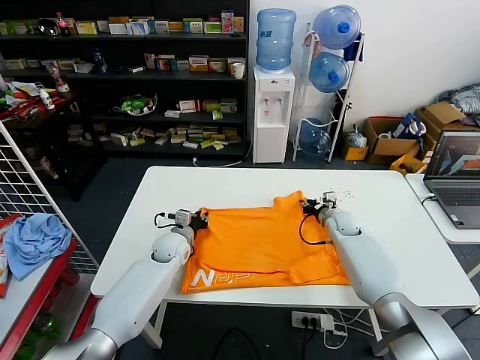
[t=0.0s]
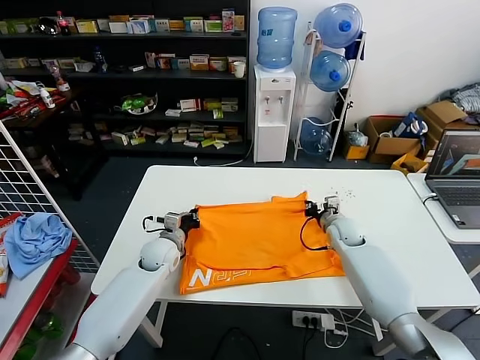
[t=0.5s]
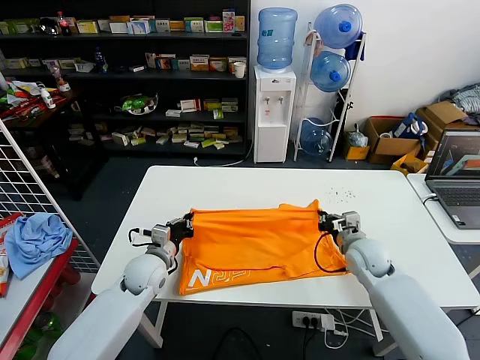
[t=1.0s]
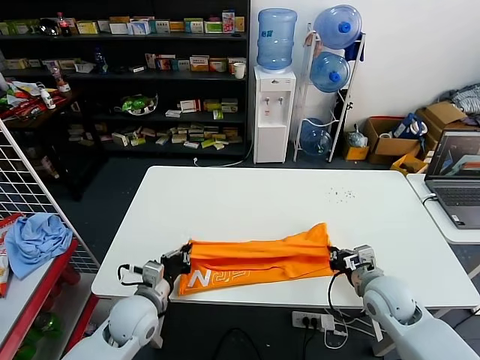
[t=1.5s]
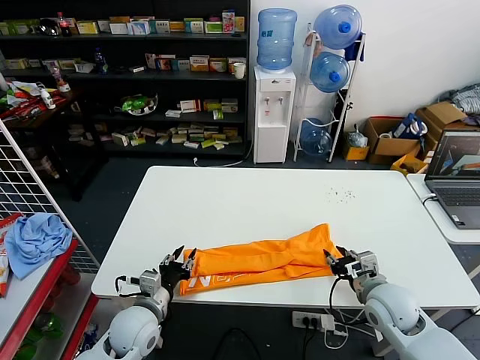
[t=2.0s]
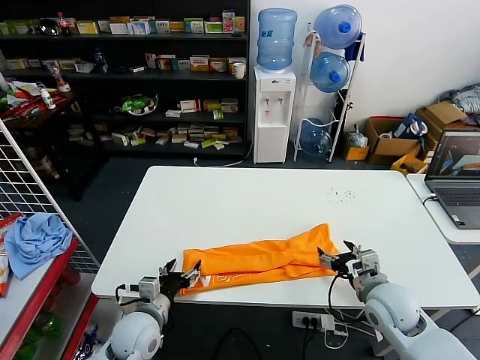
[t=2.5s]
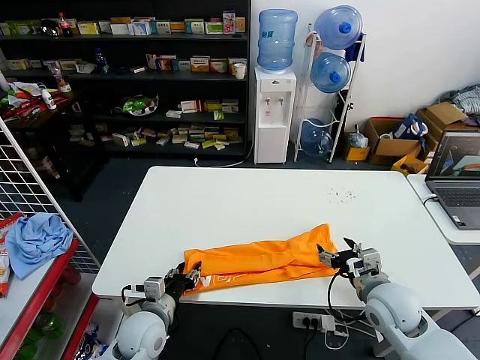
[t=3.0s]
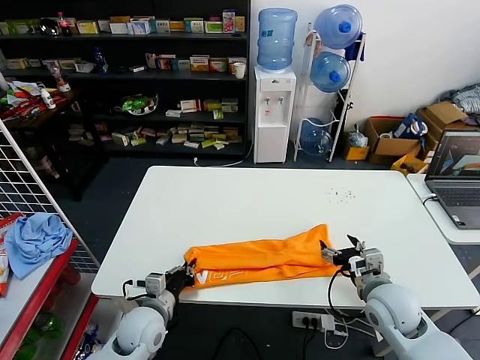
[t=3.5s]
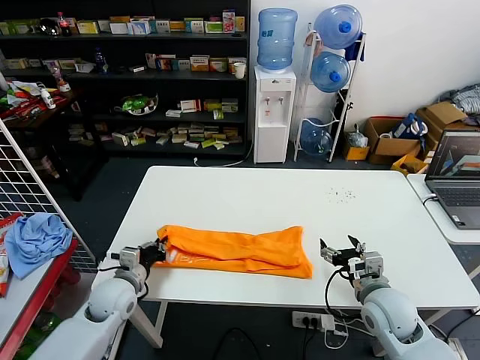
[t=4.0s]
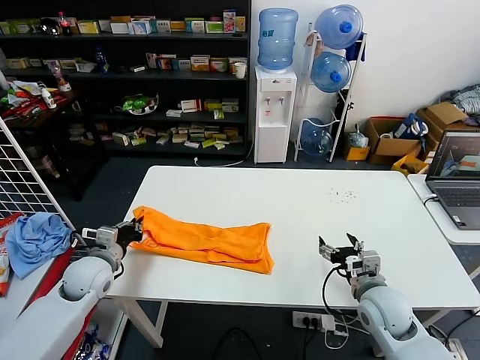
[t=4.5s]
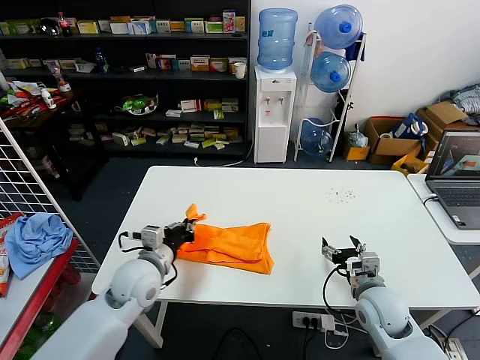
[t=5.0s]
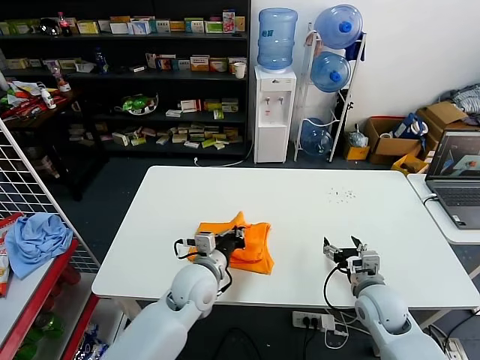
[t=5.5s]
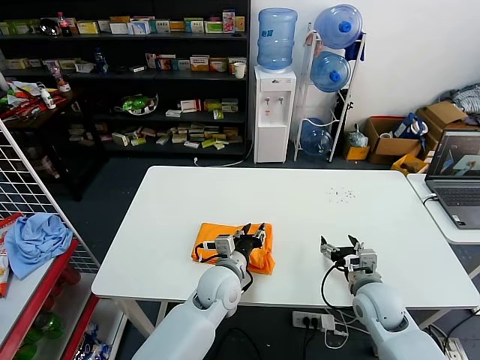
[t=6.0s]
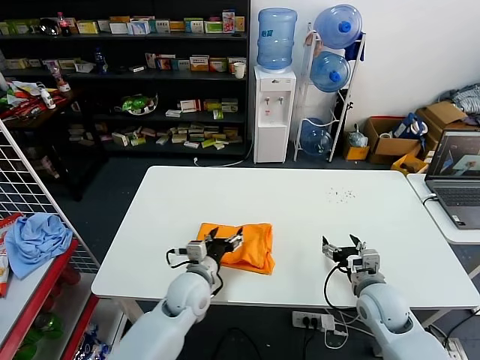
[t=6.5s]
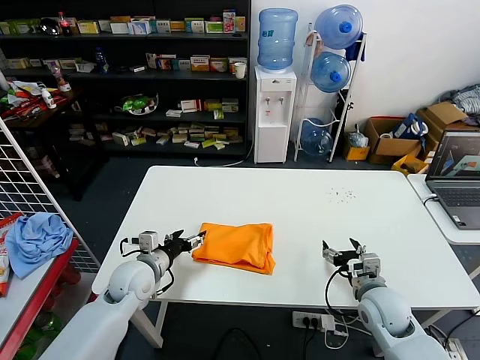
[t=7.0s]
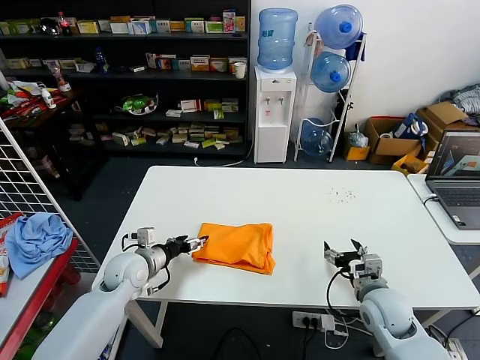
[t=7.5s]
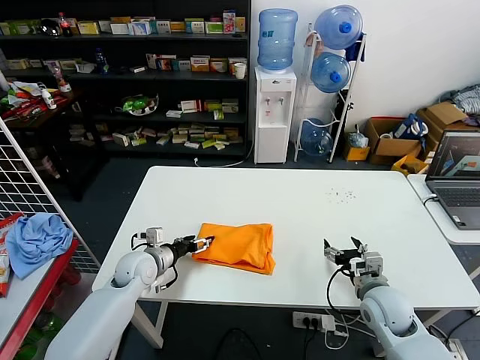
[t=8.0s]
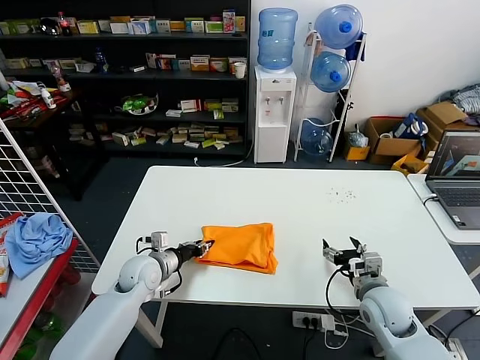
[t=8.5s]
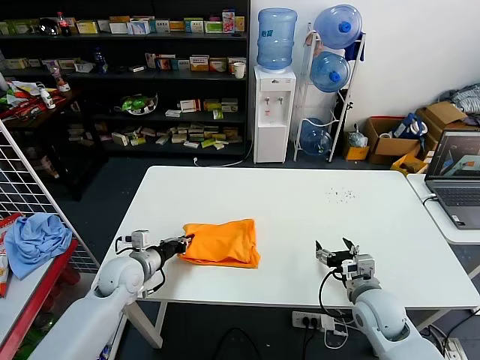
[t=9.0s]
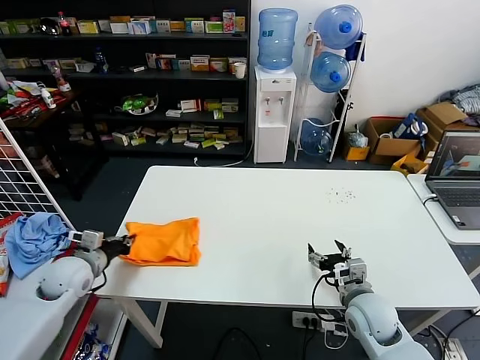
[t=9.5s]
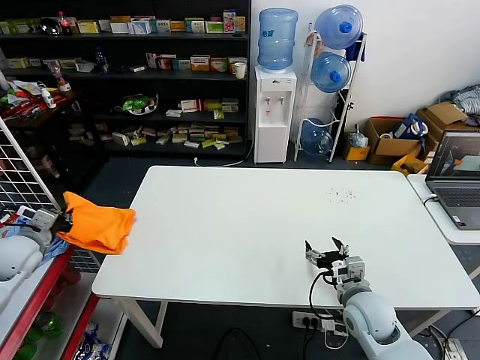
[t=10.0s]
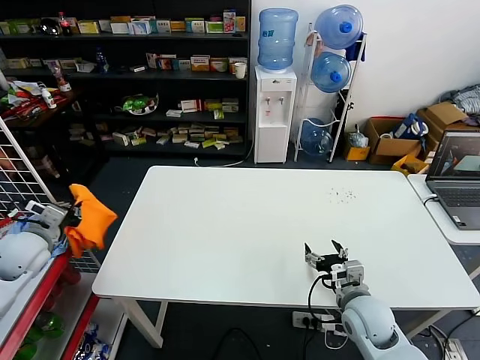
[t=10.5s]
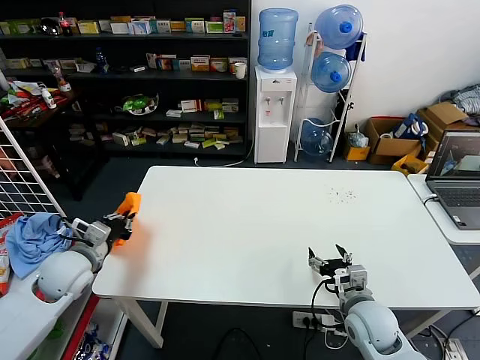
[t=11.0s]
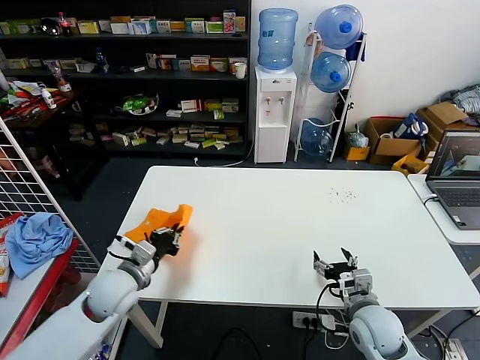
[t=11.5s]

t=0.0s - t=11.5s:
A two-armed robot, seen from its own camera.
Task of the whole recording: fold and organize the clothes.
Step, t=0.5s - t=1.5s: use both grippers to drag the upper edge of the fabric backward and fold it over the lower edge.
Step, t=2.5s - t=3.0s: use the left gripper to clamp the left edge of the fabric.
Step, t=3.5s - t=6.0s: use the left gripper to drag the left edge of the fabric to the left and folds it over the right edge.
t=0.0s - t=2.0s: The grippers both shift backward by roughly 25 cm.
t=2.0s - t=4.0s: The right gripper opens its fingers; the left gripper travels to the left and forward by some 10 cm, and closes up.
t=4.0s - t=6.0s: The left gripper shifts some 25 cm to the right, and opens up.
t=6.0s - t=7.5s: The left gripper goes about 25 cm to the left, and opens its fingers.
t=7.5s - t=9.5s: The left gripper heads to the left, covering some 10 cm, and closes.
t=9.5s - t=11.5s: The left gripper moves to the right, some 10 cm.

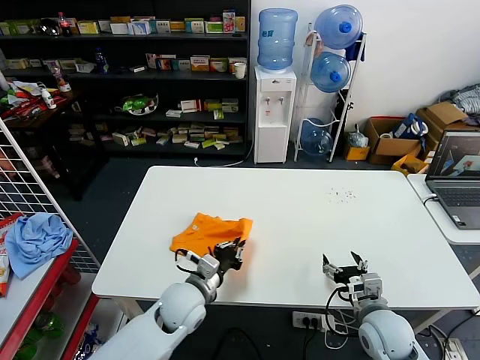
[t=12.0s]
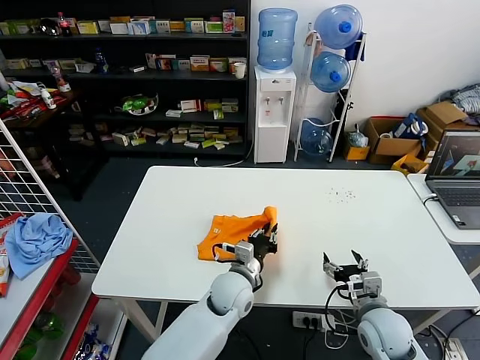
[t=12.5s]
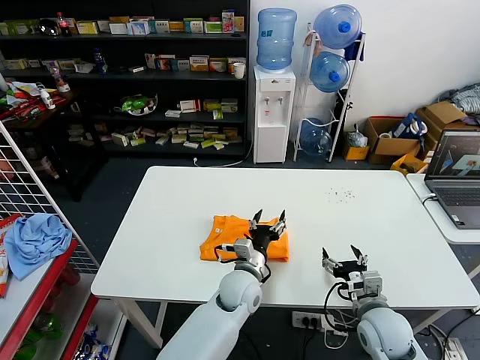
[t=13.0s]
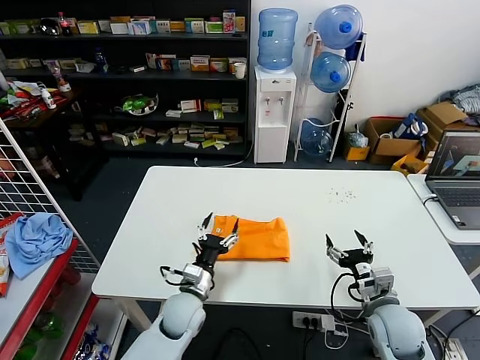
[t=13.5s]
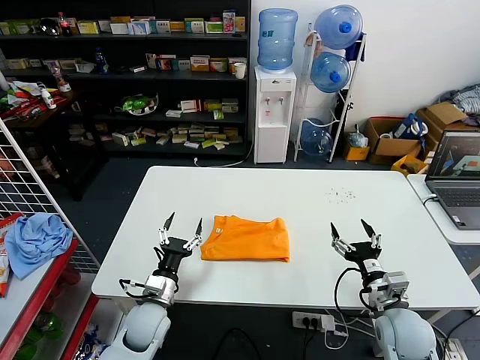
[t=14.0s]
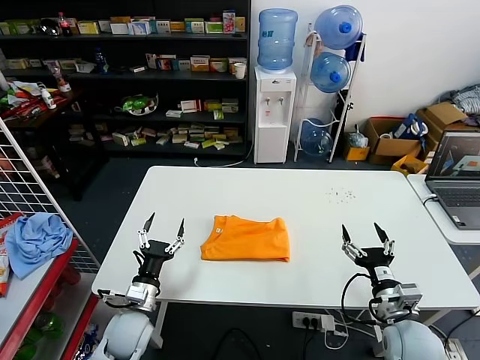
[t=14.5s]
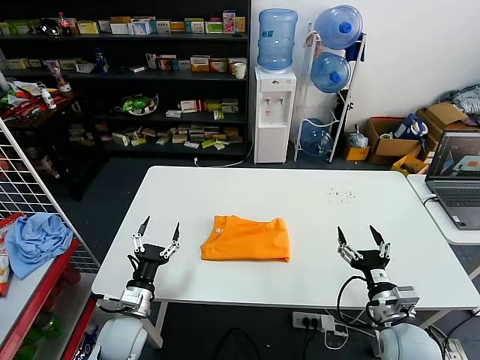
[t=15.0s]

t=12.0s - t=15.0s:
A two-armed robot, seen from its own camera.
Task of the whole recording: fold and organize the clothes.
t=12.0s - t=13.5s: The left gripper travels downward by roughly 5 cm, goes to the right and returns, roughly 15 cm each way, and opens up.
t=13.5s - t=15.0s: The left gripper is displaced to the left and backward by about 15 cm.
